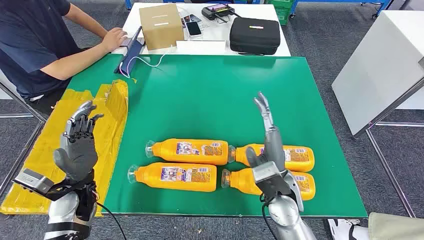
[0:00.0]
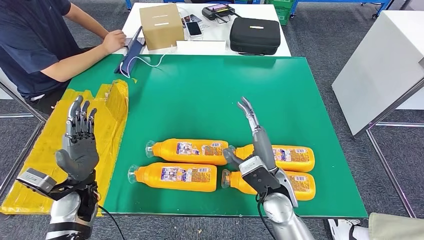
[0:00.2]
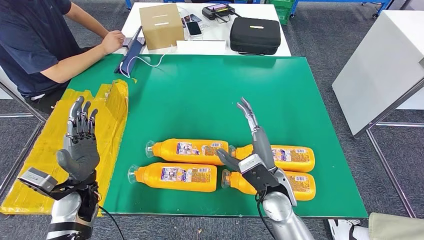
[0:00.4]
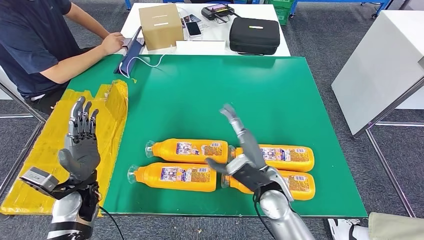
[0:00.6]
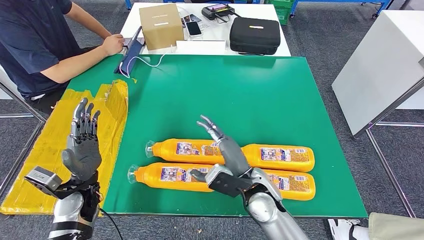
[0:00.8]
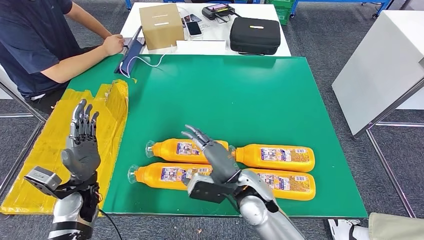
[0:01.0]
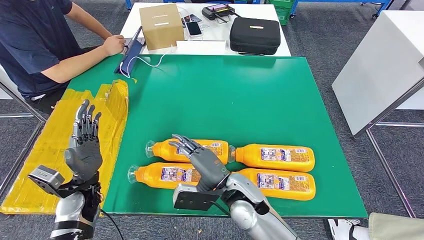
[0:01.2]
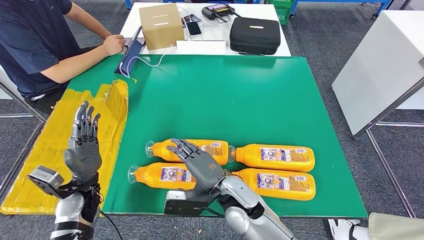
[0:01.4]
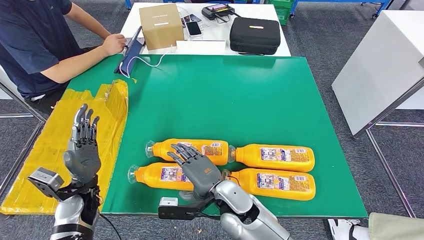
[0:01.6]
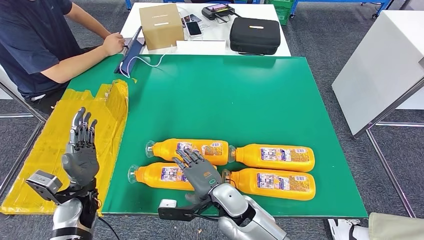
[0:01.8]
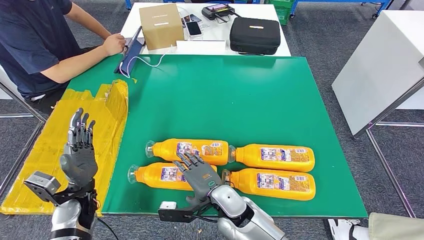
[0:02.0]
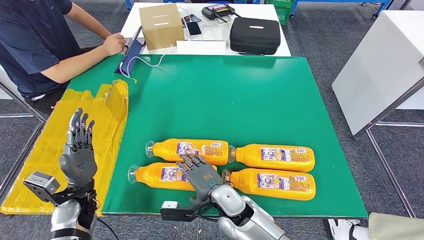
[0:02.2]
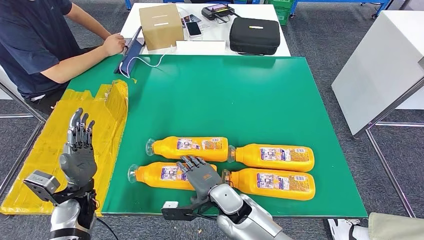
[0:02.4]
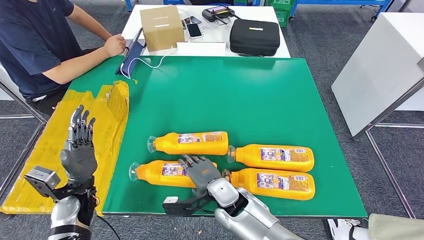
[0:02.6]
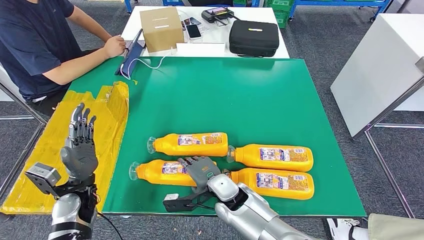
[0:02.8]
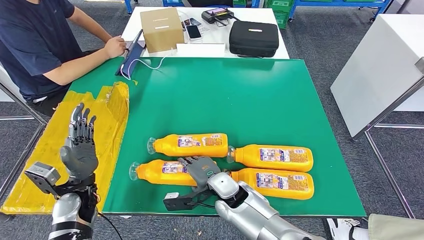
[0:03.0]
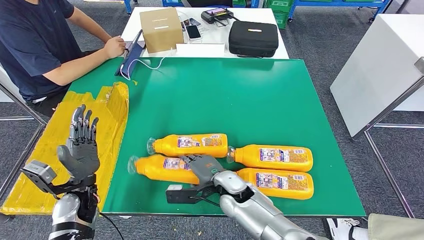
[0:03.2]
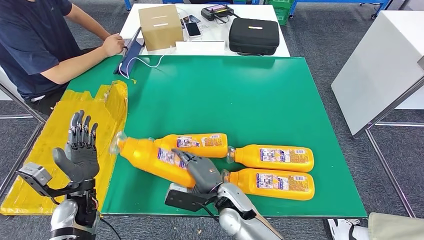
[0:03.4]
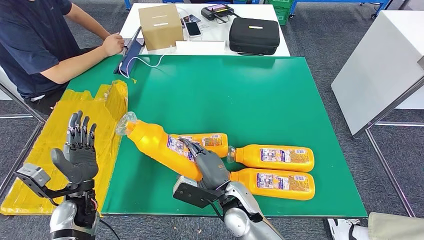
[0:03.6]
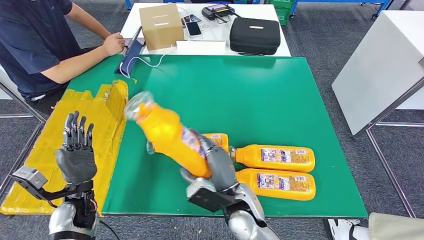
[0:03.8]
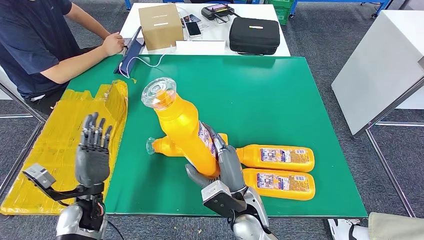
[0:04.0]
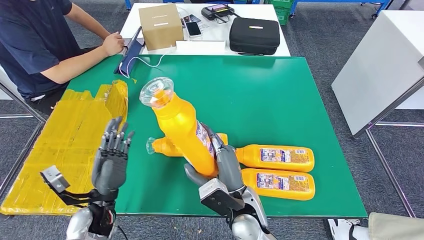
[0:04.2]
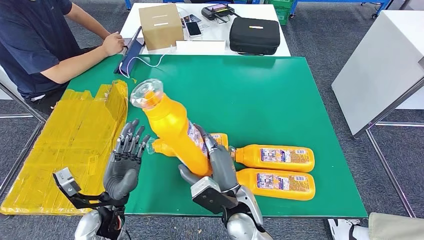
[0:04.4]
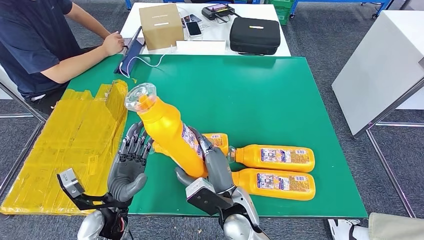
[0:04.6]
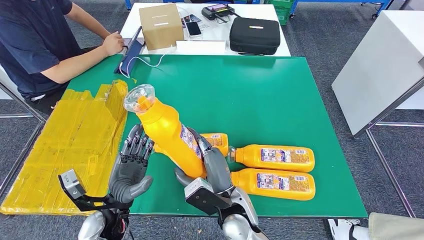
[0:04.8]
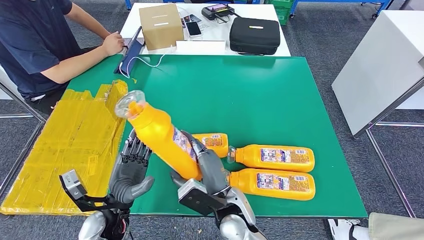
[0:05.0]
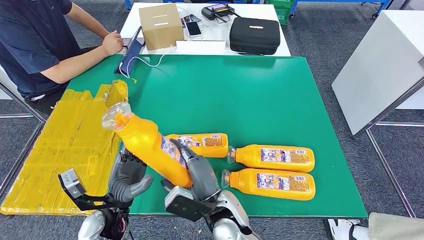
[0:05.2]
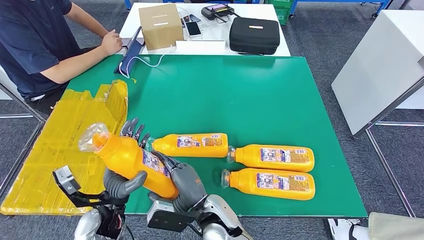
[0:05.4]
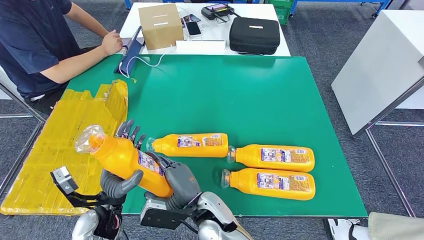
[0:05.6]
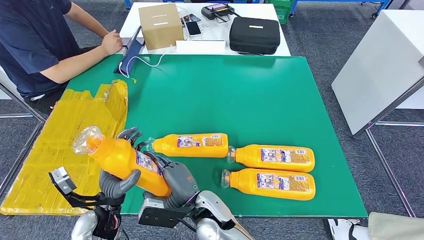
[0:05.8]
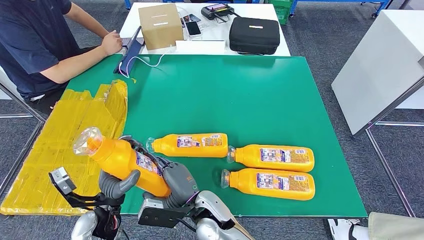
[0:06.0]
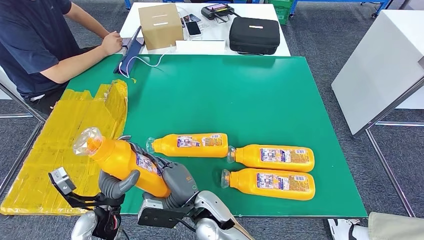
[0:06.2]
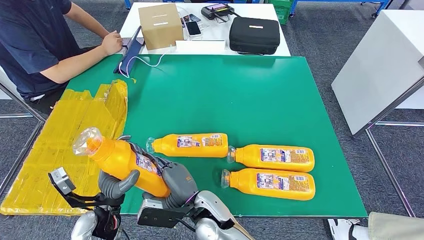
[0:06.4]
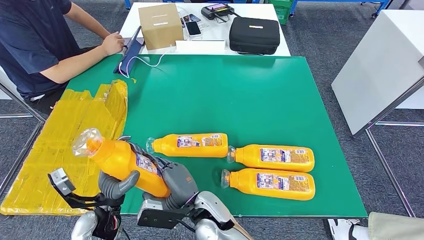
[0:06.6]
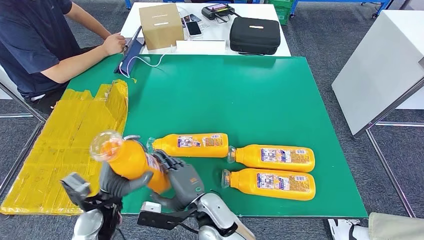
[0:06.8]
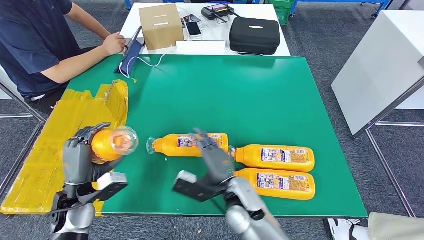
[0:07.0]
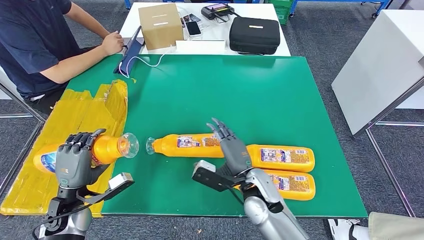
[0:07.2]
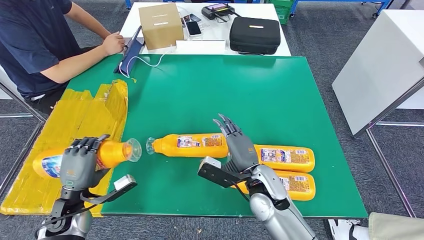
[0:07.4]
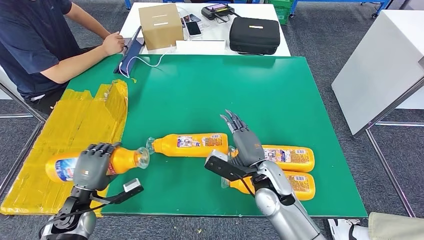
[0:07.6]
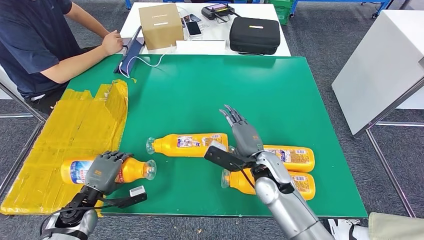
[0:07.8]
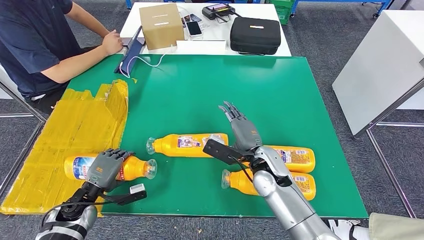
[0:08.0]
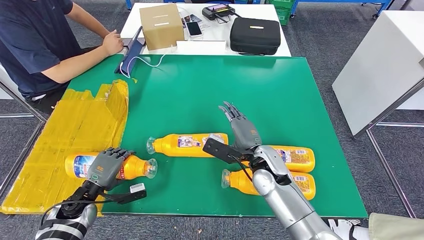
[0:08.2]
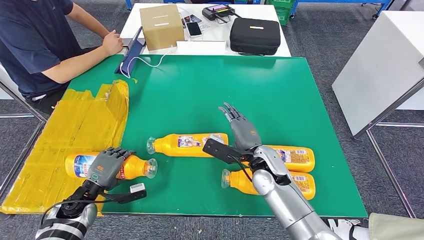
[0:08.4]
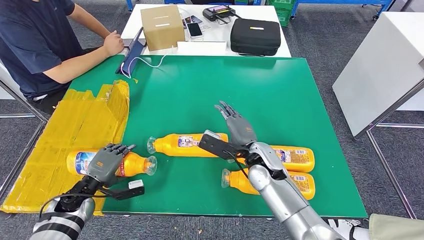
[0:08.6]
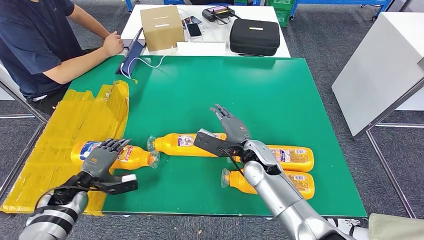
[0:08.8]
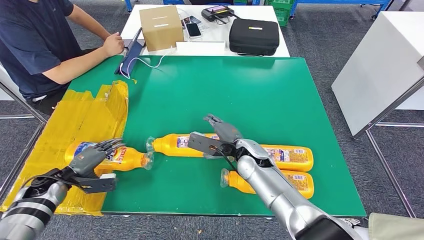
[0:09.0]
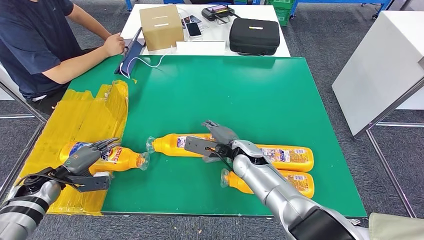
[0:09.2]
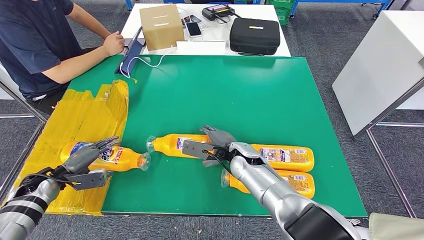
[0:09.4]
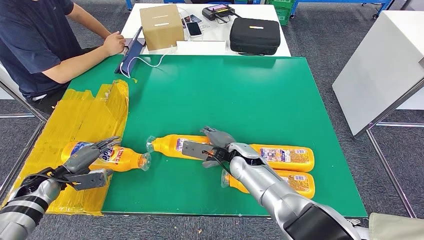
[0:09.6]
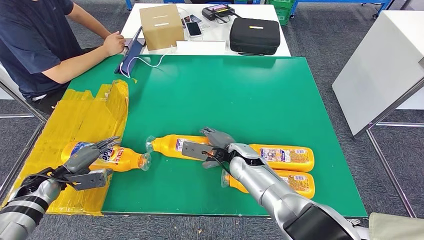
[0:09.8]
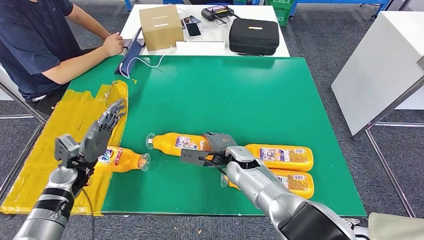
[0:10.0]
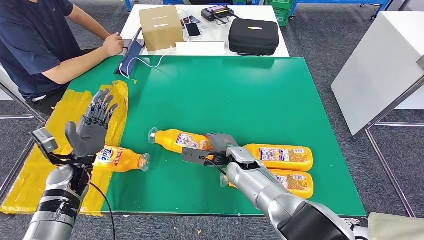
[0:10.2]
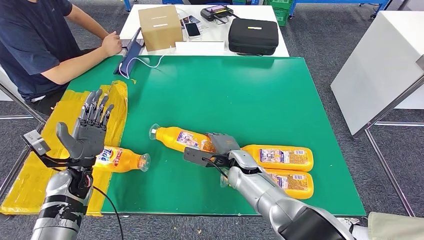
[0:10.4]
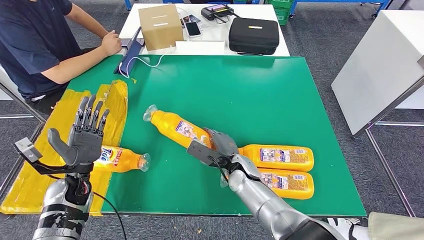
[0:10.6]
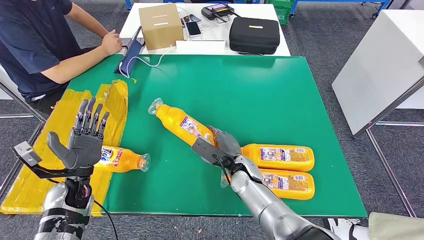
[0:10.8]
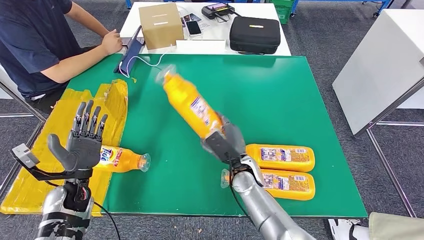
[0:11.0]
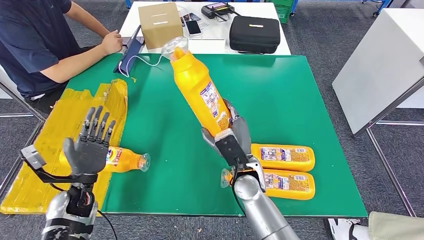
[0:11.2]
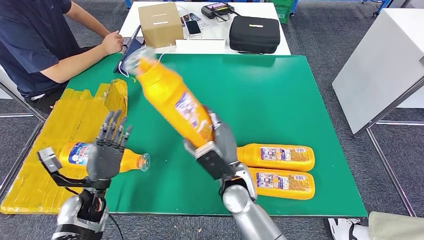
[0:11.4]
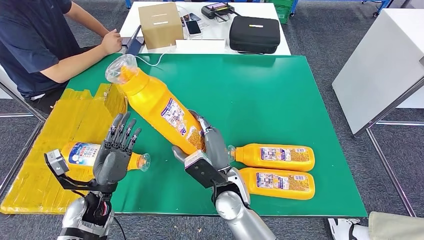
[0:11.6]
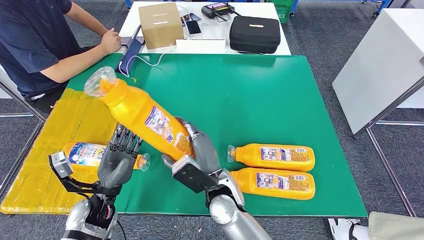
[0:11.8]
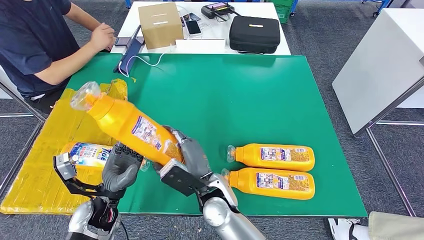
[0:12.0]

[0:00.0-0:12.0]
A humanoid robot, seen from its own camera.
Step, 0:00.0 to 0:06.4: Take the bottle from the table.
Step, 0:06.8 to 0:09.4: Flip the bottle to face forward.
0:04.4 to 0:06.0: The right hand heads to the left, covering some 10 cm.
0:06.0 to 0:07.6: The left hand is displaced to the left by about 10 cm. Meanwhile the right hand travels to the right and forward by some 15 cm.
0:07.6 to 0:09.0: The left hand is displaced to the left and forward by some 10 cm. The right hand moves forward, some 10 cm.
0:09.0 to 0:10.4: The right hand shifts by approximately 5 cm, while the left hand shifts approximately 10 cm to the right.

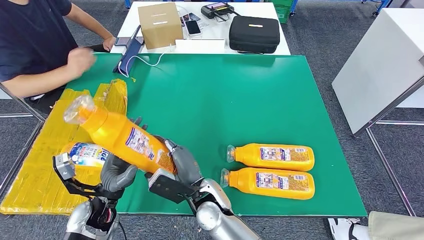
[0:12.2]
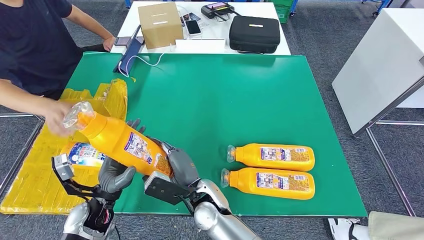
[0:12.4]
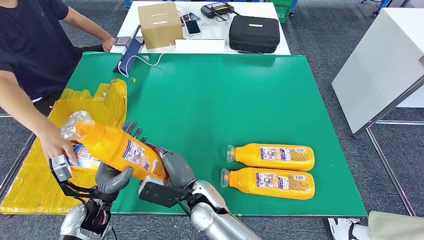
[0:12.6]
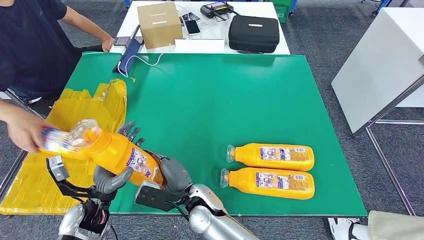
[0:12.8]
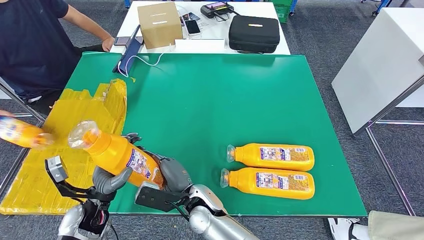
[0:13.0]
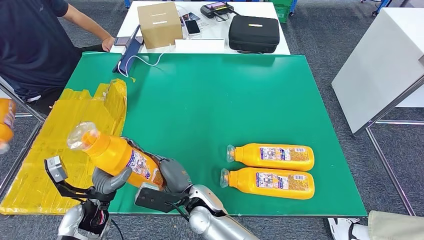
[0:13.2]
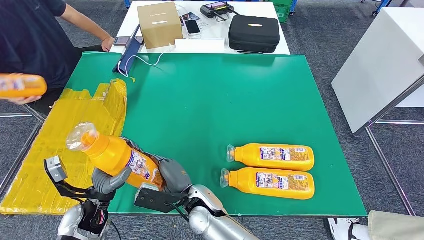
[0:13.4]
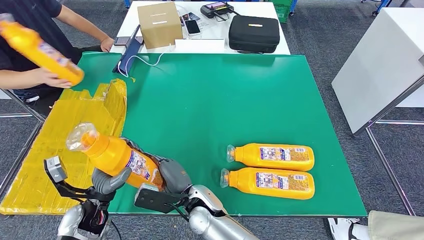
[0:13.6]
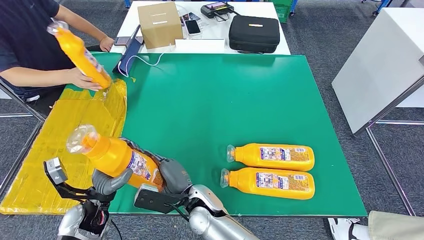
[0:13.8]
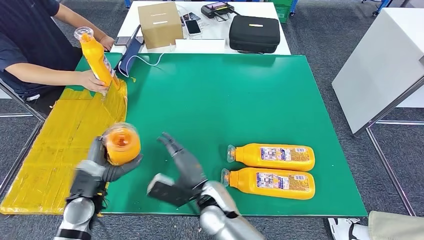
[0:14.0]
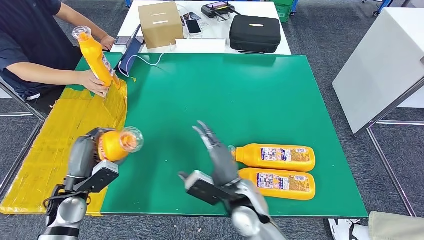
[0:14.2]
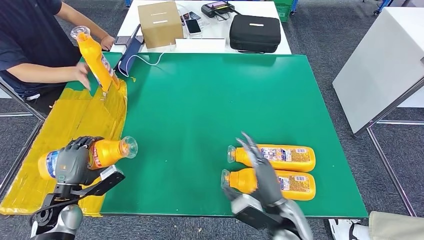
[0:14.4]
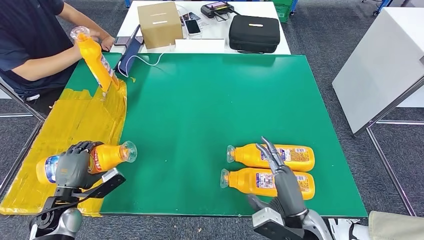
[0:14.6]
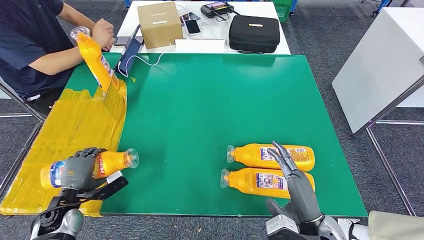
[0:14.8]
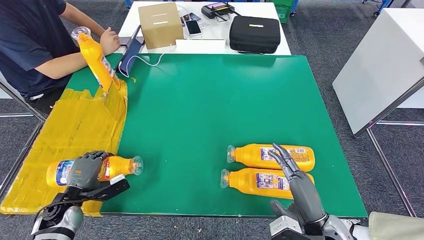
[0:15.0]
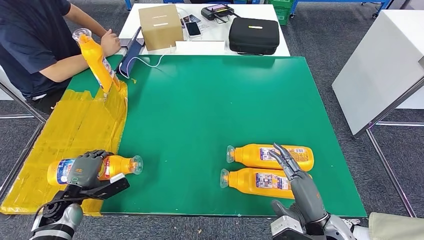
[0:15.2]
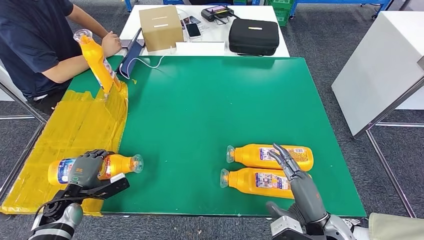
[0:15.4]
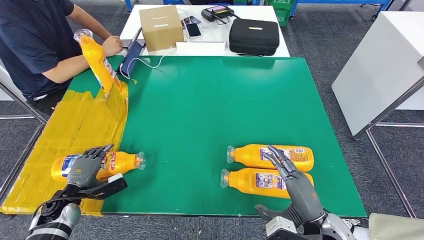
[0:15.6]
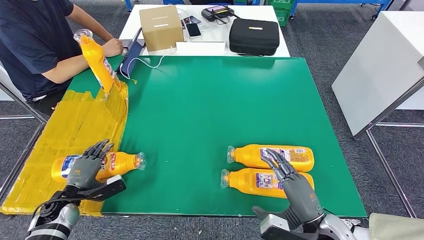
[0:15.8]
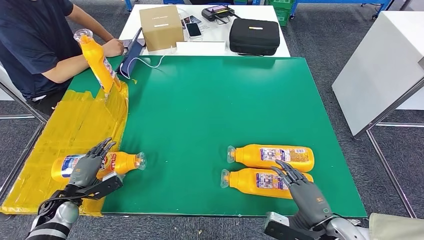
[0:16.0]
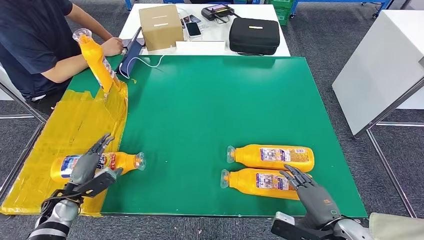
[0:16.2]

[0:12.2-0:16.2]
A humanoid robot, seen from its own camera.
Step, 0:13.2 to 0:16.0: Flip the bottle to face forward.
0:12.2 to 0:13.6: The hands move only a little.
0:14.8 to 0:16.2: The right hand travels to the right by roughly 5 cm.
